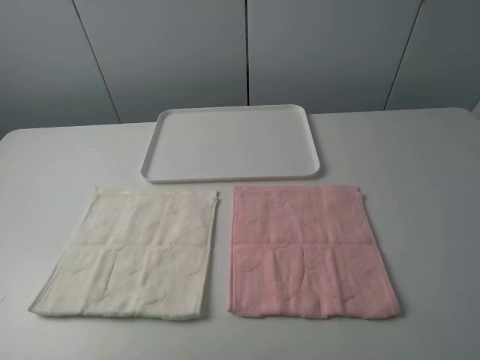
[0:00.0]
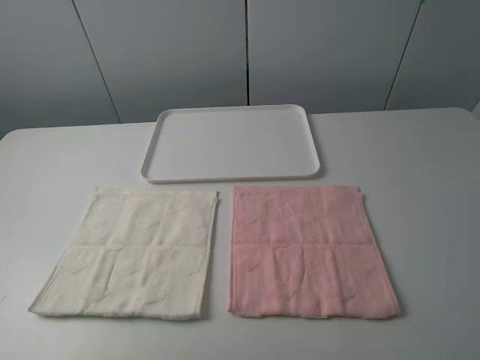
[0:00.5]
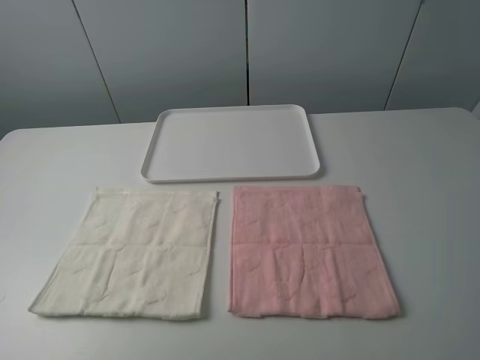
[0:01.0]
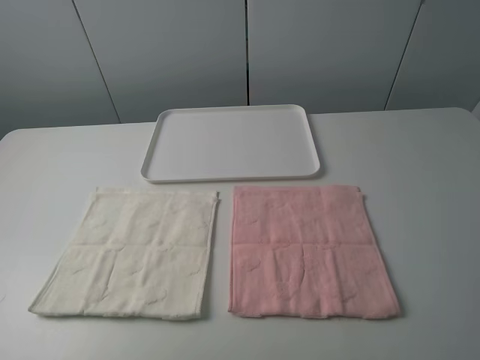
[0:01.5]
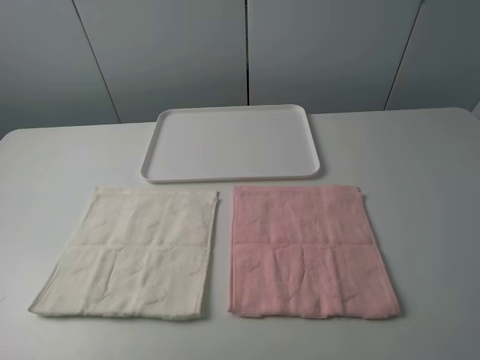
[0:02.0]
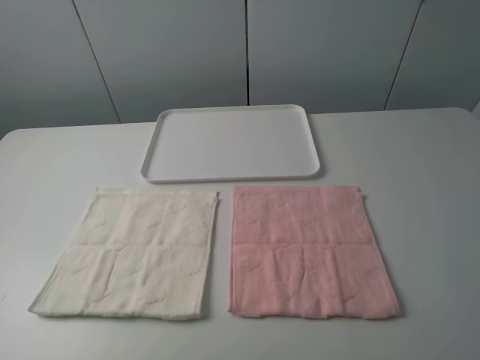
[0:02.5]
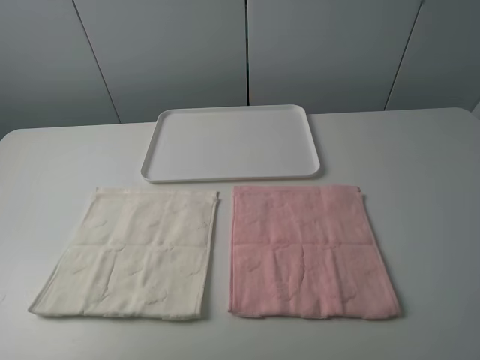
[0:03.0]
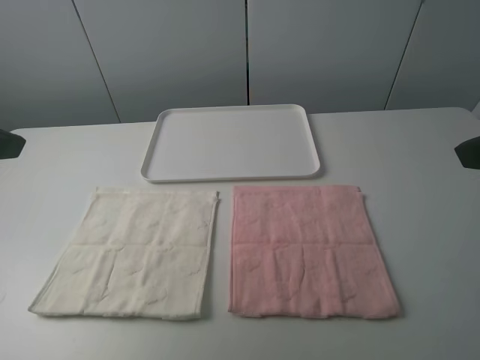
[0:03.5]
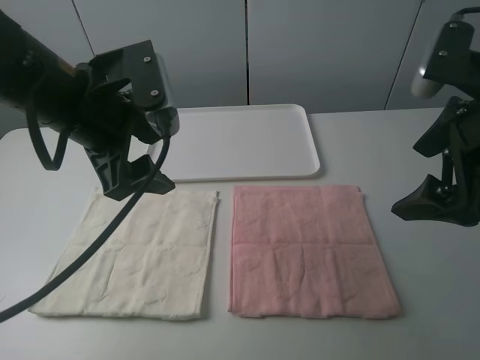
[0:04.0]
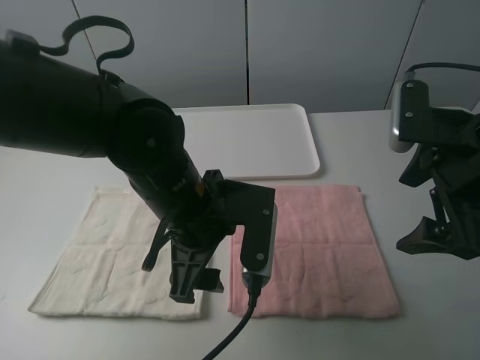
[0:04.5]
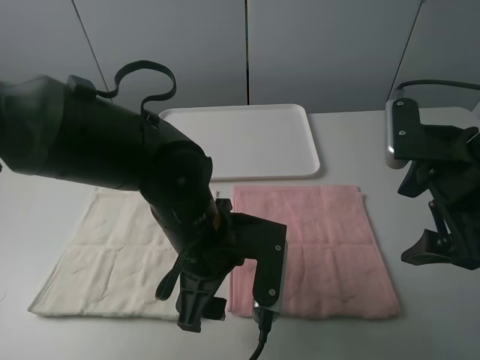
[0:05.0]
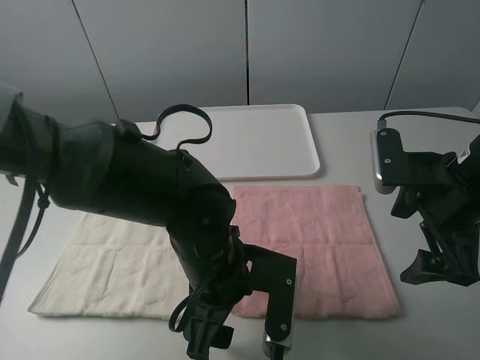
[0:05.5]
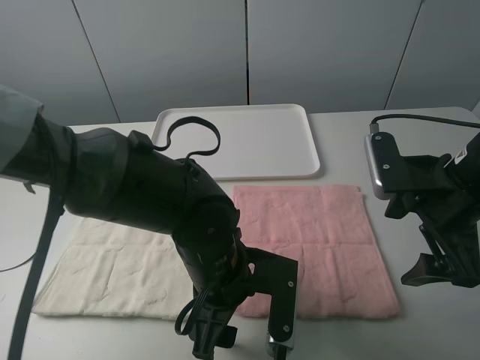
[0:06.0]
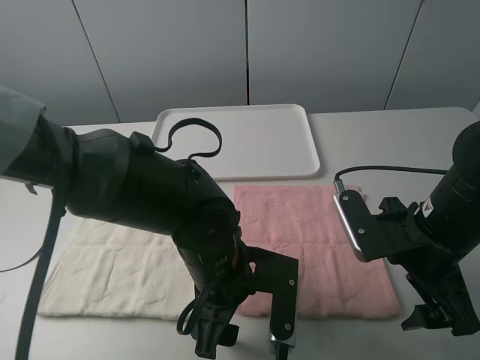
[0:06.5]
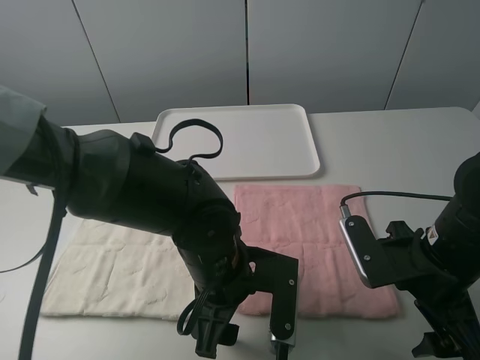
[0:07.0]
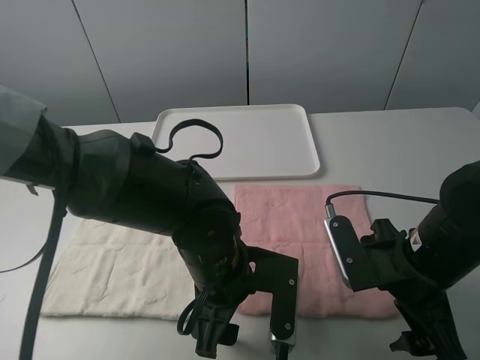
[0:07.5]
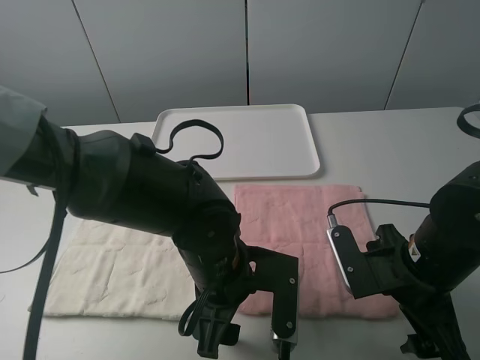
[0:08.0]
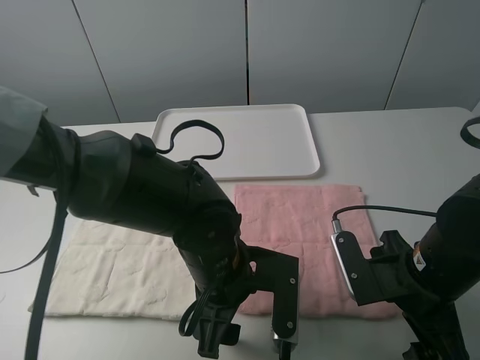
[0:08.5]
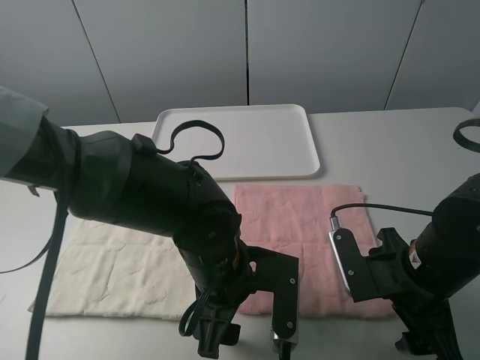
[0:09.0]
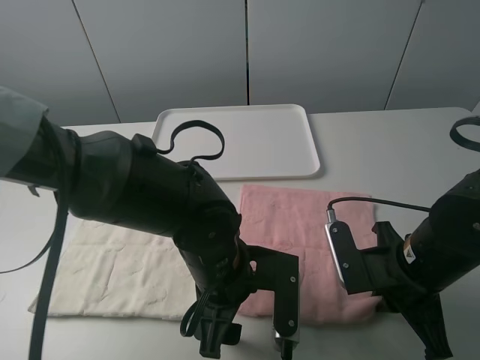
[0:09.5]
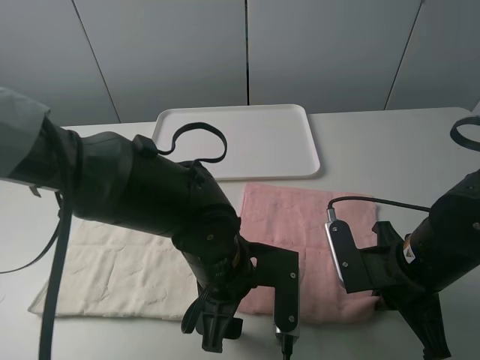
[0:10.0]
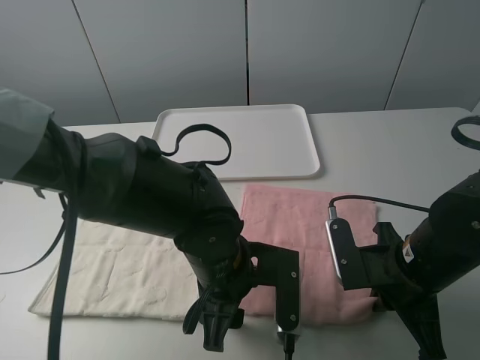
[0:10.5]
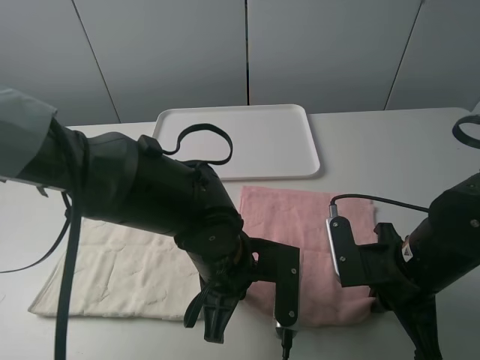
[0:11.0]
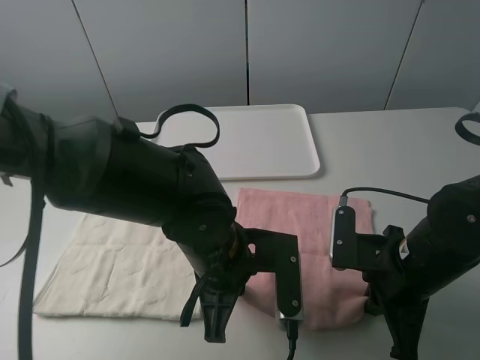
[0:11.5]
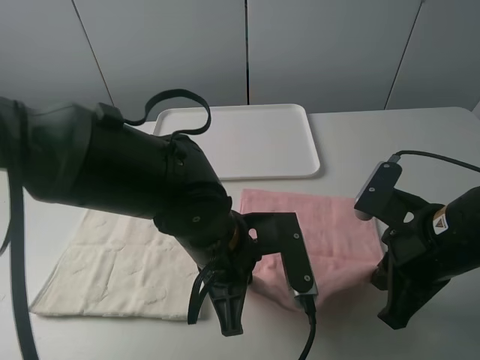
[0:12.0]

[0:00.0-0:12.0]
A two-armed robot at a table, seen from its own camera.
Task of the whole recording: fold one of the towels by two grippers and place it on the tray,then fold another towel by two grippers and place it on the folded towel.
Step, 0:00.0 to 0:10.5: Grasp the pink towel with the left gripper.
0:00.0 to 0:02.0: Both grippers stay about where they are.
0:02.0 to 0:04.0: The left gripper heads forward and to the right, covering roughly 30 cm. The right gripper travels forward by approximately 20 cm.
0:04.0 to 0:06.0: The left gripper heads downward, to the right and backward, covering some 20 cm; the right gripper moves downward, some 10 cm.
0:06.0 to 0:08.0: The right gripper moves downward, roughly 5 cm.
0:08.0 to 0:10.0: The right gripper closes up.
0:10.0 to 0:12.0: The right gripper is displaced upward by roughly 5 cm. Meanwhile the left gripper closes.

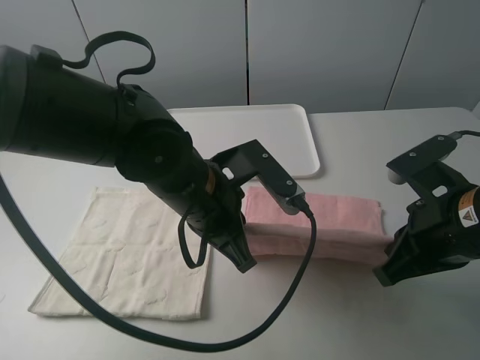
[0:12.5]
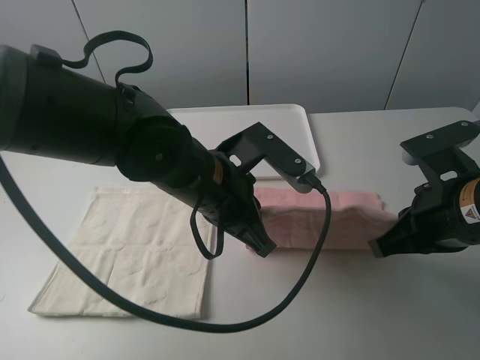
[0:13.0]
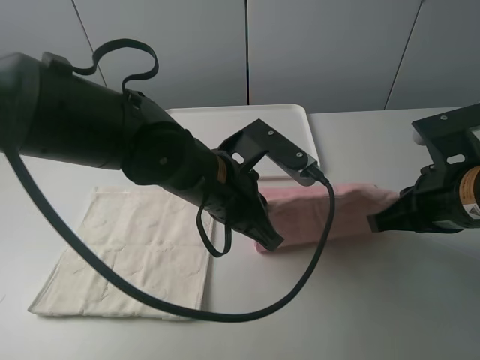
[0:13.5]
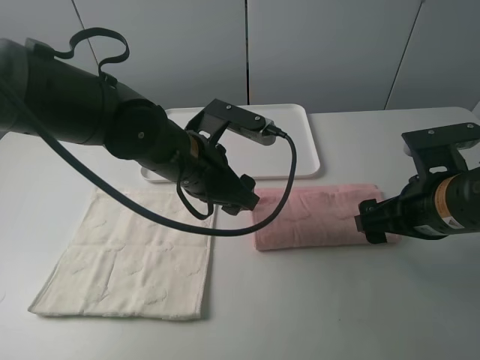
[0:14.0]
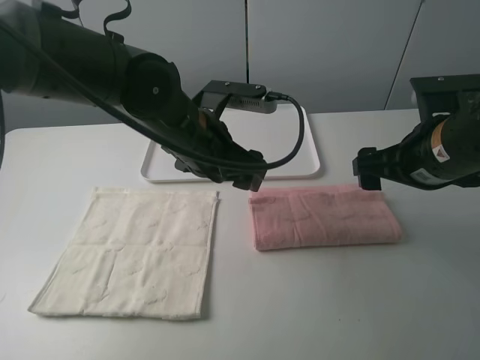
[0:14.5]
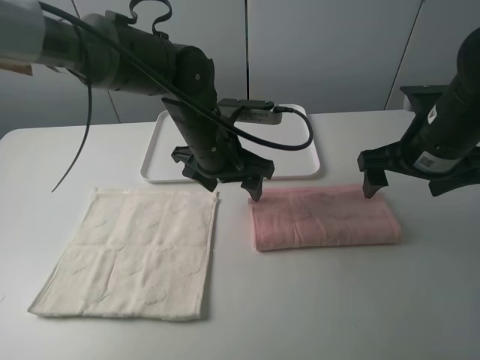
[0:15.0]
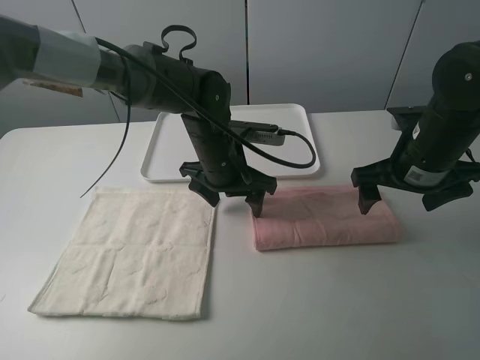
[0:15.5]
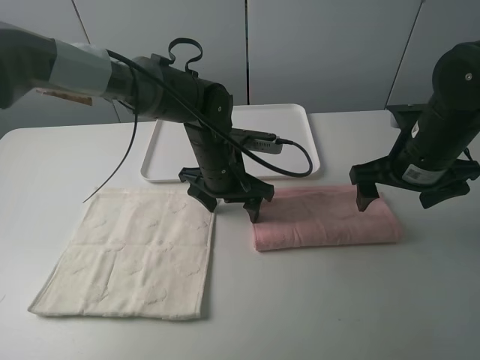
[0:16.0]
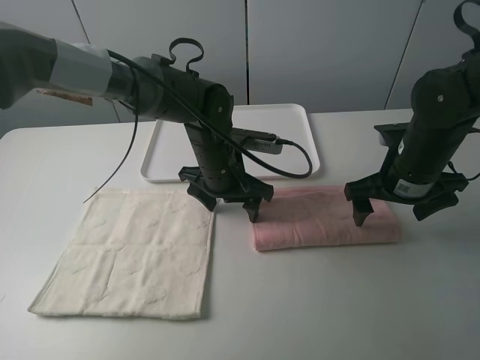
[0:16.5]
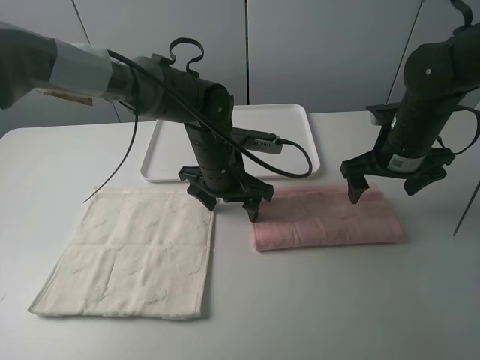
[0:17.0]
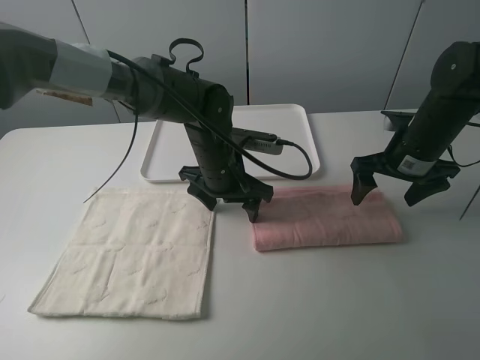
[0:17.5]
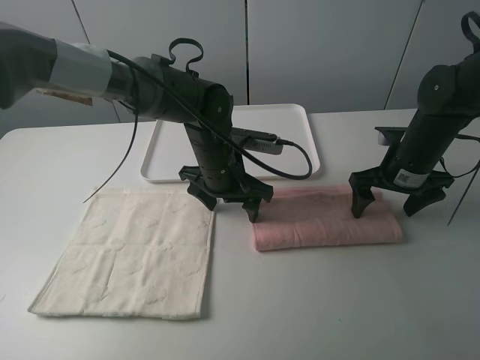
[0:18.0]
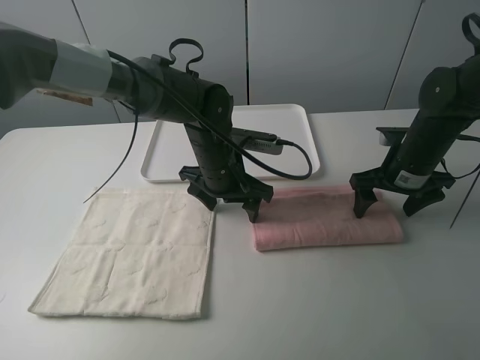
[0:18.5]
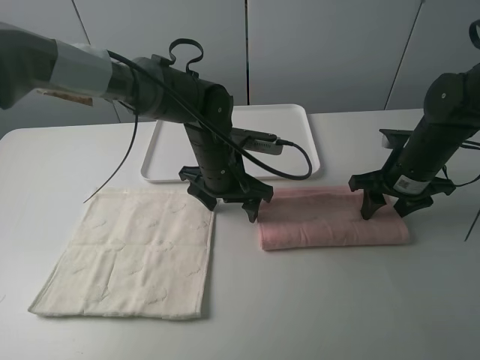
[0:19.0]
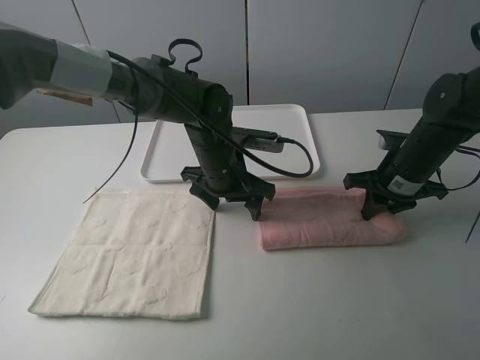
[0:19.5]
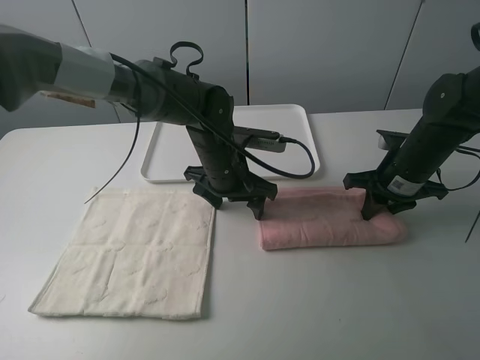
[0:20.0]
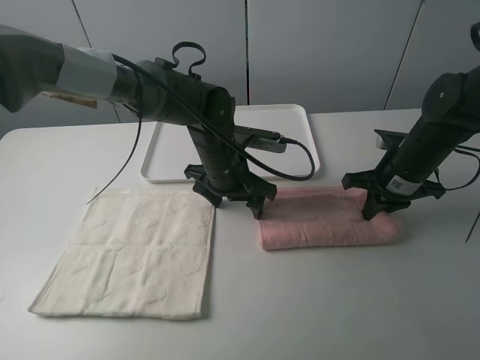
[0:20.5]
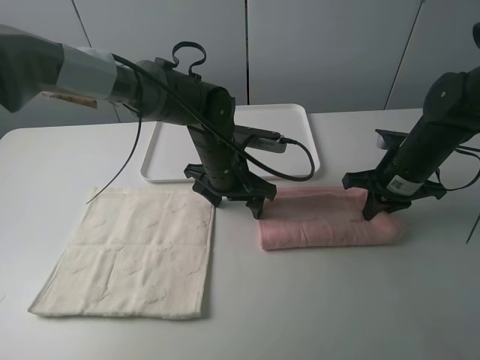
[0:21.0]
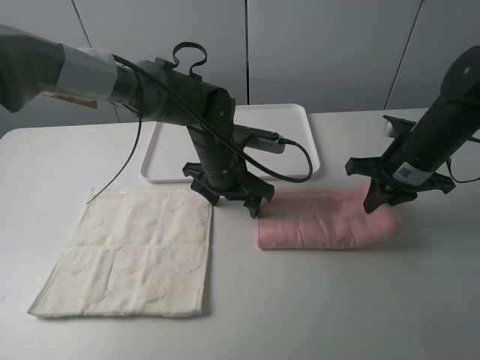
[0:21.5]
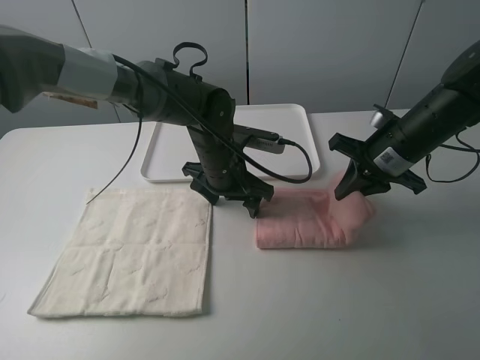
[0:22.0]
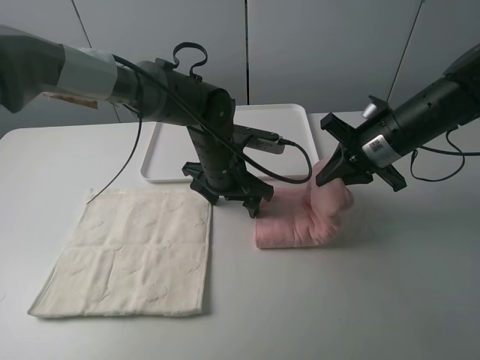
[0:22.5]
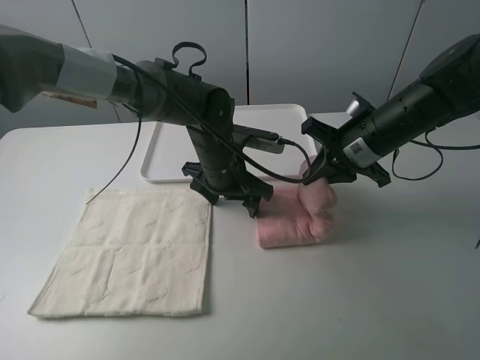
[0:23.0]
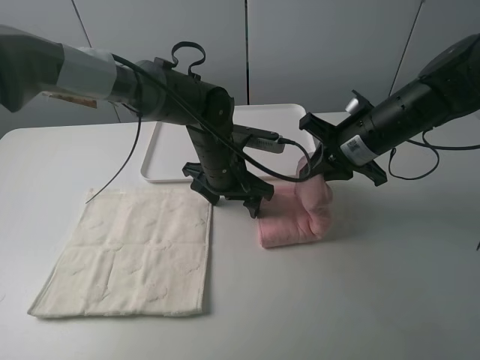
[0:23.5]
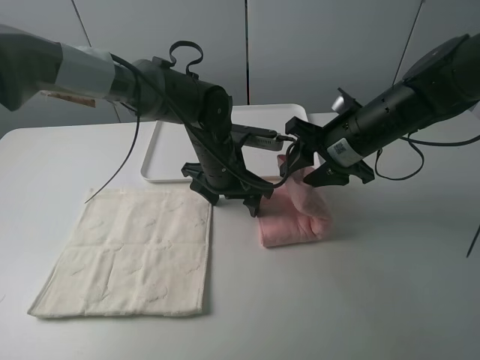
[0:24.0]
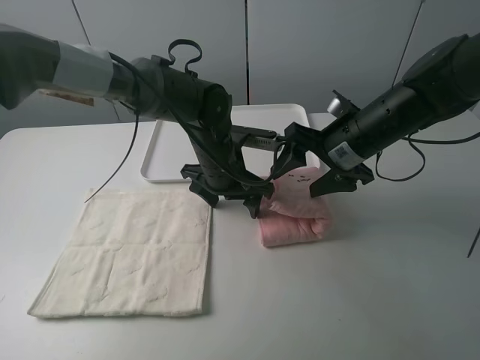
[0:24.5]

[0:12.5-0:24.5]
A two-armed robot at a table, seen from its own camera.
Task of the whole recording: fold one of the towels by two grippers and place it on the tray,then fold another towel by two grippers and place it on the folded towel.
Step, 0:14.5 to 0:16.0: Press the pink towel with the left gripper.
Step, 0:16.5 to 0:19.5: Grasp the pink towel with the right gripper.
Step, 0:20.0 to 0:24.0: Fold the pink towel from right to left with right gripper.
0:12.5 to 0:14.5: The grippers both shift forward by approximately 10 cm. The left gripper opens up, while the right gripper opens its fingers.
0:14.5 to 0:16.5: Both grippers travel together downward, roughly 5 cm.
0:16.5 to 0:18.5: The right gripper changes place by approximately 5 cm.
0:18.5 to 0:20.5: The right gripper closes its fingers.
0:20.5 to 0:22.5: The right gripper travels upward by approximately 5 cm.
0:22.5 to 0:24.5: The right gripper opens up.

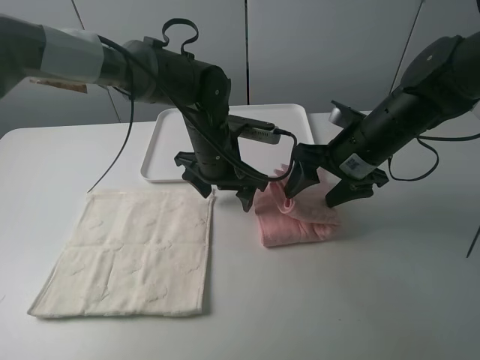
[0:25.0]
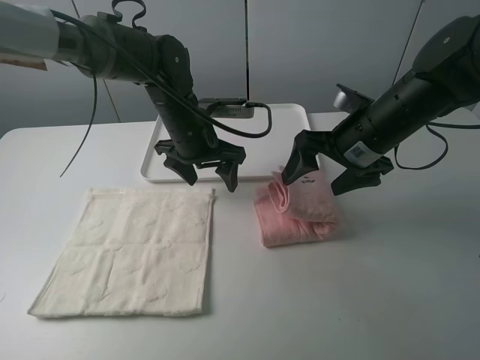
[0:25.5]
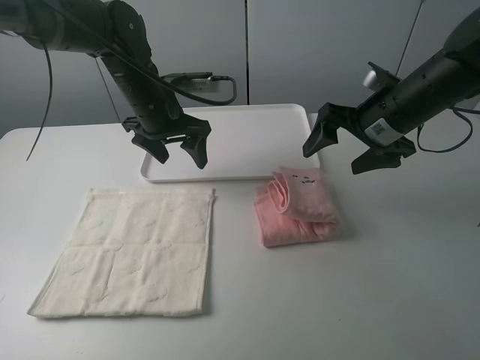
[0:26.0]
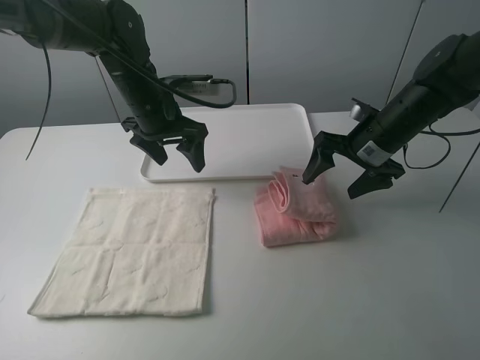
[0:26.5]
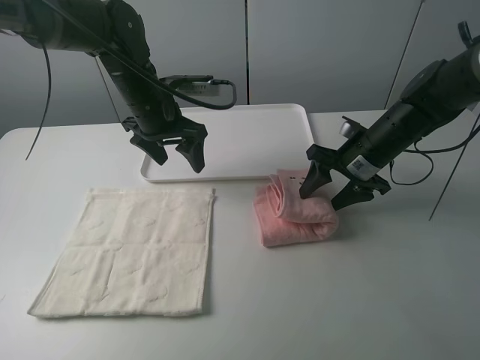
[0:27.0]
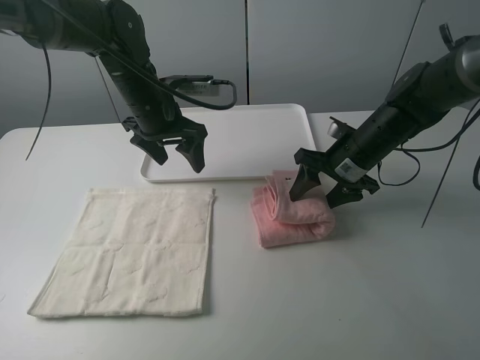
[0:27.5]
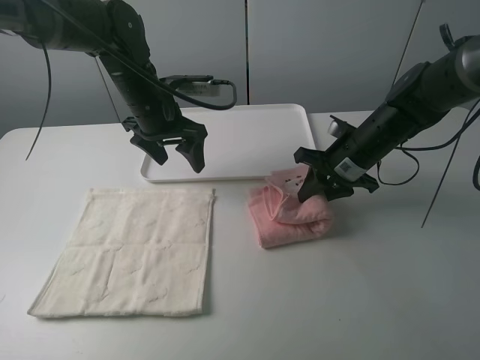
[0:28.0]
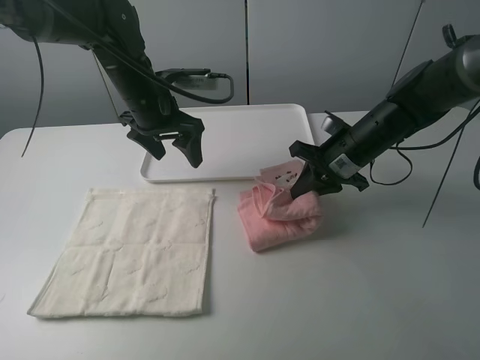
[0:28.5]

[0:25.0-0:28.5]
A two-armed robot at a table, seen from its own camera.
Task of the whole recording: fold one of the towels by two grippers and place it on the tray,then fold another towel by two grippers and place it on the folded towel.
Step, 0:25.0 to 0:28.0: Grasp the pink towel with the right gripper.
0:25.0 to 0:27.0: The right gripper ends up about 5 cm from where it was, while the left gripper goes approximately 10 cm to the left and upward.
0:27.0 to 0:28.5: The right gripper closes up.
